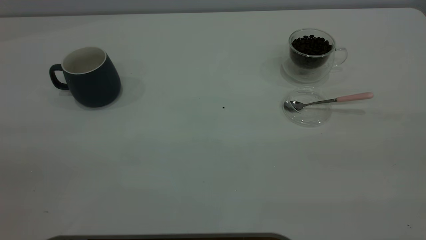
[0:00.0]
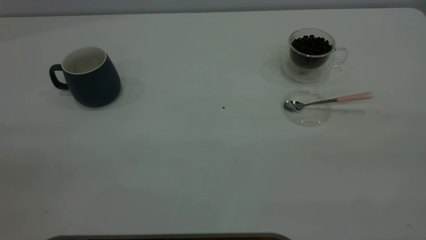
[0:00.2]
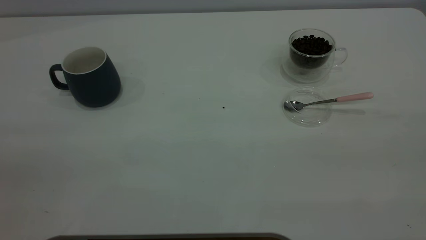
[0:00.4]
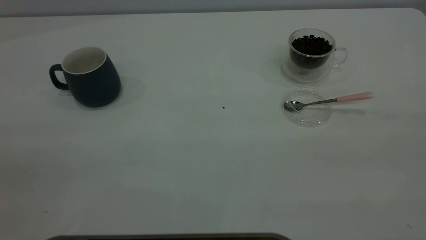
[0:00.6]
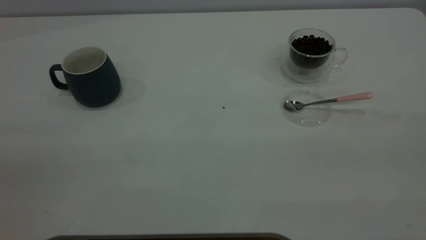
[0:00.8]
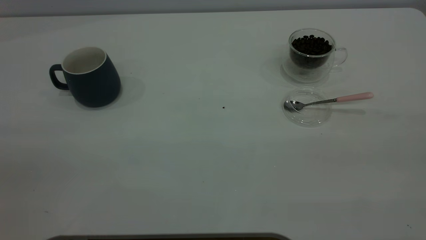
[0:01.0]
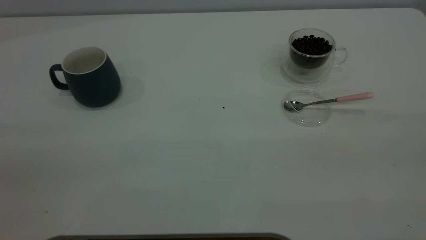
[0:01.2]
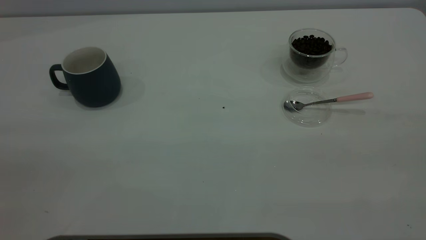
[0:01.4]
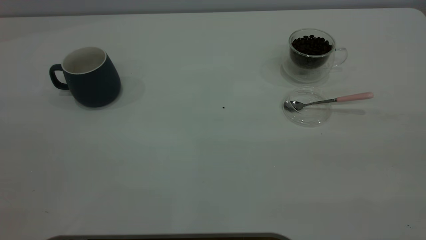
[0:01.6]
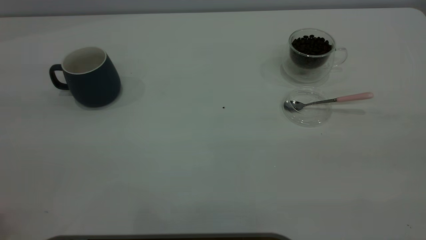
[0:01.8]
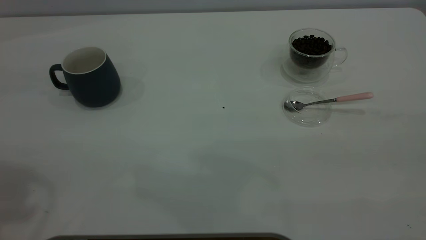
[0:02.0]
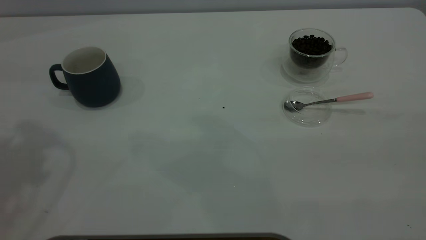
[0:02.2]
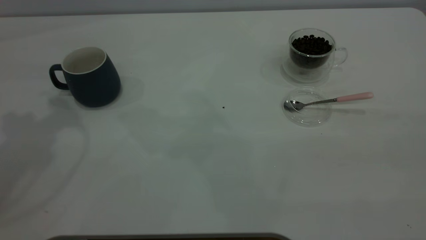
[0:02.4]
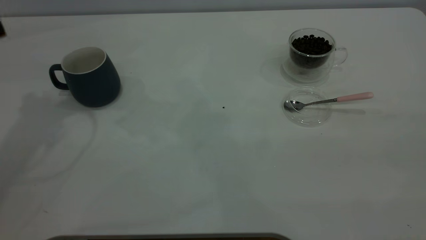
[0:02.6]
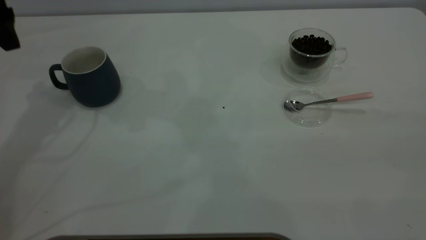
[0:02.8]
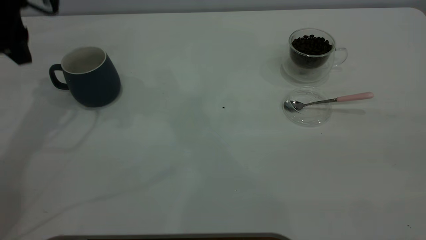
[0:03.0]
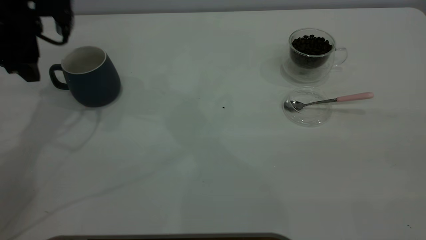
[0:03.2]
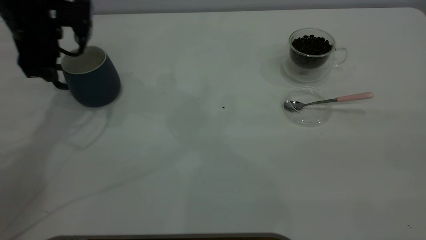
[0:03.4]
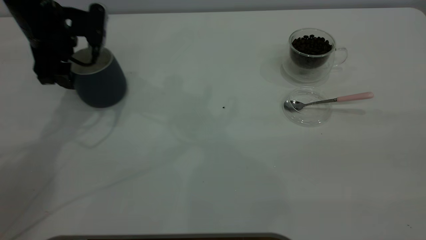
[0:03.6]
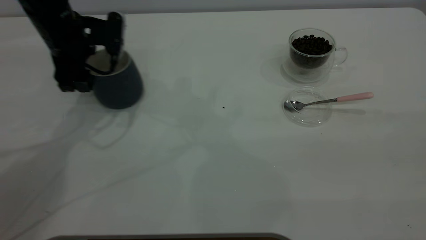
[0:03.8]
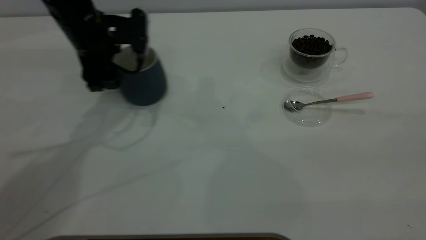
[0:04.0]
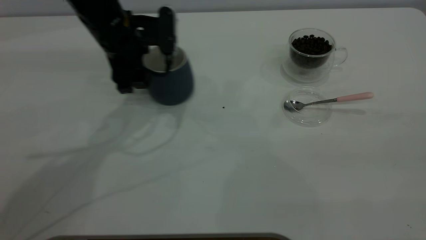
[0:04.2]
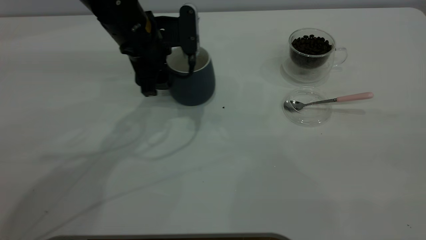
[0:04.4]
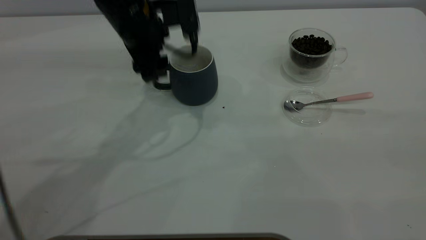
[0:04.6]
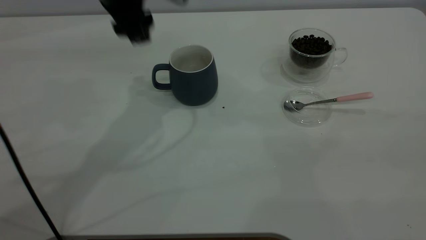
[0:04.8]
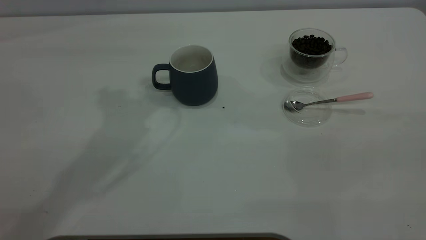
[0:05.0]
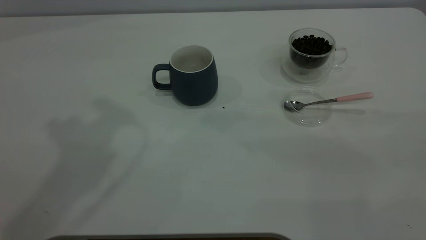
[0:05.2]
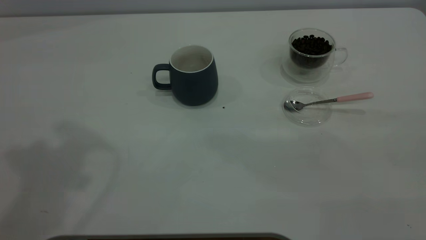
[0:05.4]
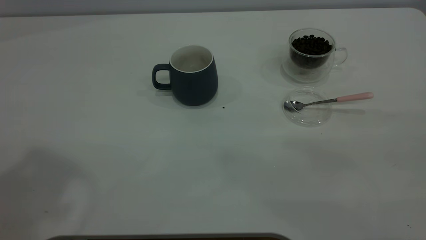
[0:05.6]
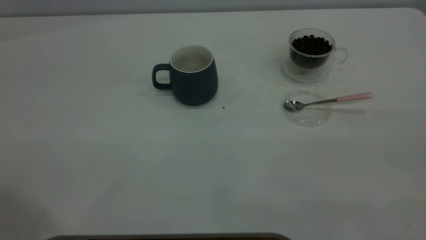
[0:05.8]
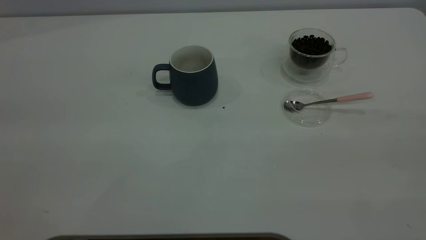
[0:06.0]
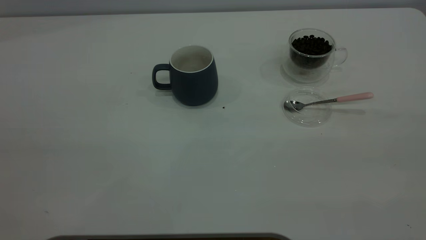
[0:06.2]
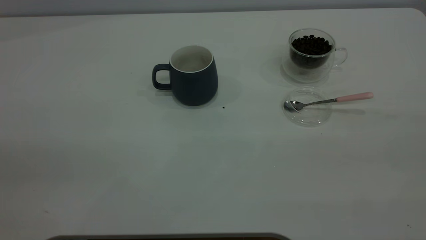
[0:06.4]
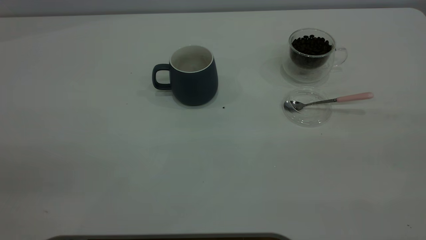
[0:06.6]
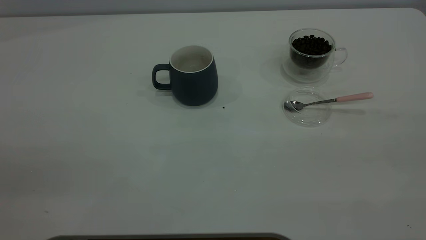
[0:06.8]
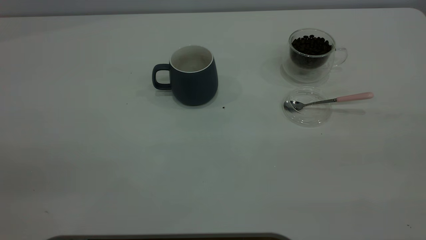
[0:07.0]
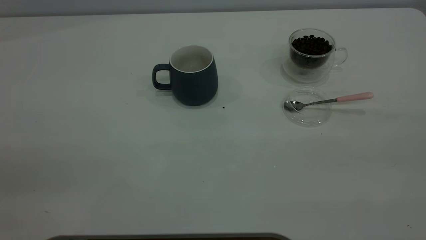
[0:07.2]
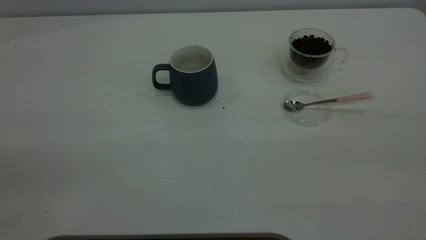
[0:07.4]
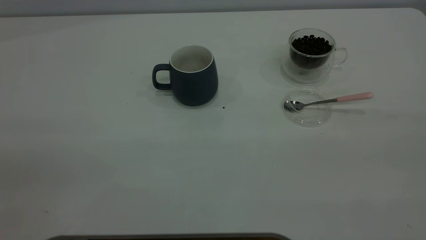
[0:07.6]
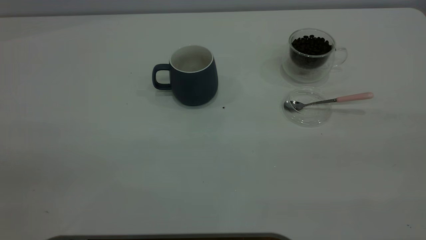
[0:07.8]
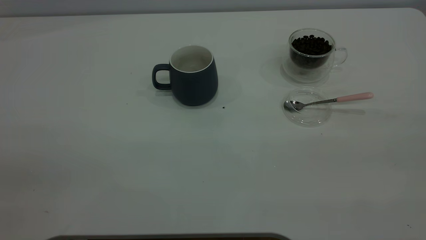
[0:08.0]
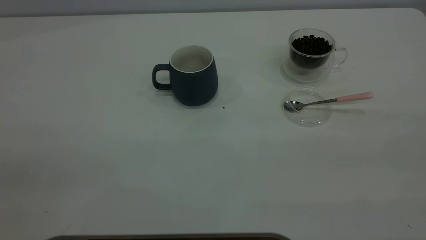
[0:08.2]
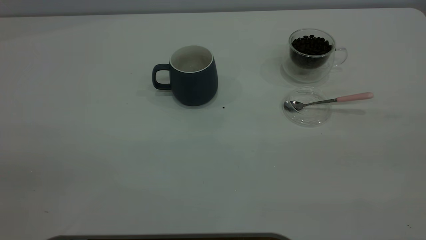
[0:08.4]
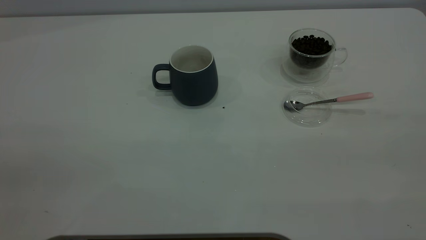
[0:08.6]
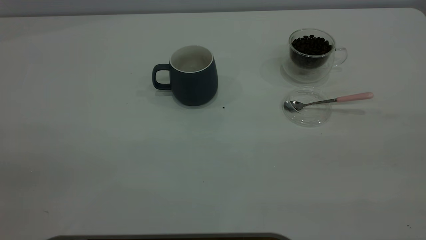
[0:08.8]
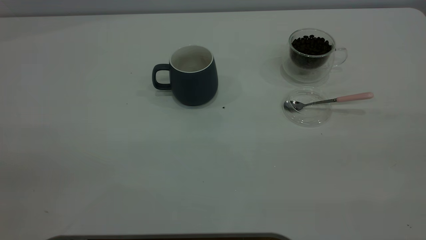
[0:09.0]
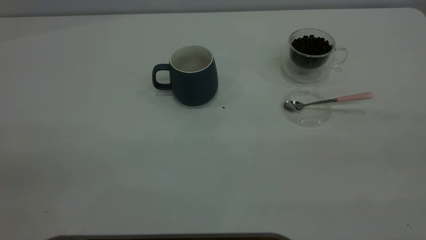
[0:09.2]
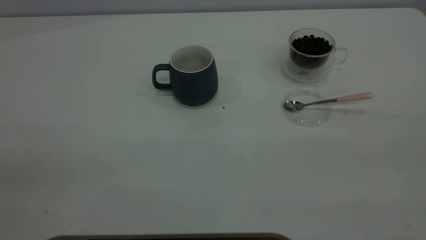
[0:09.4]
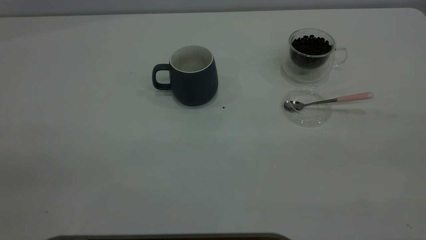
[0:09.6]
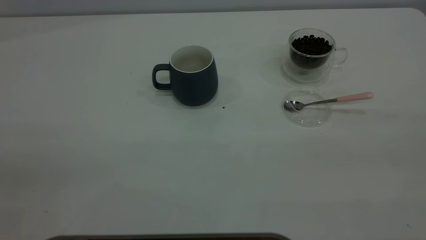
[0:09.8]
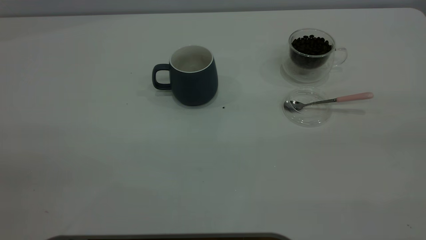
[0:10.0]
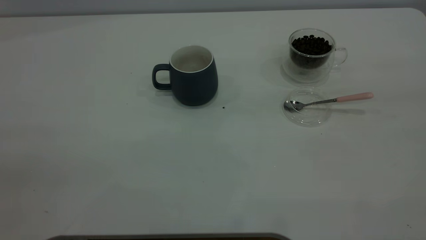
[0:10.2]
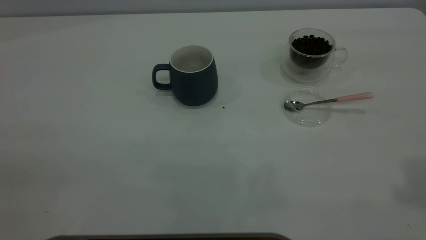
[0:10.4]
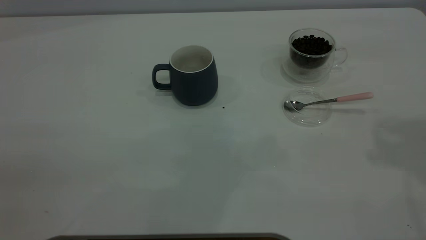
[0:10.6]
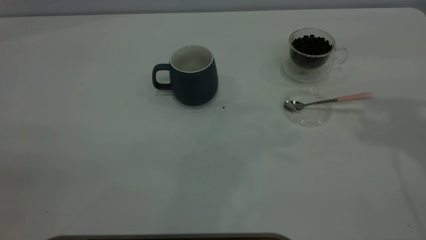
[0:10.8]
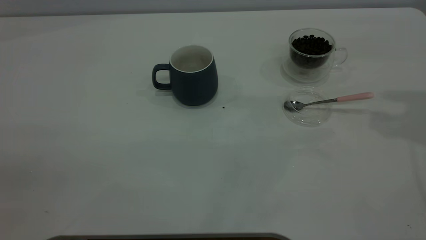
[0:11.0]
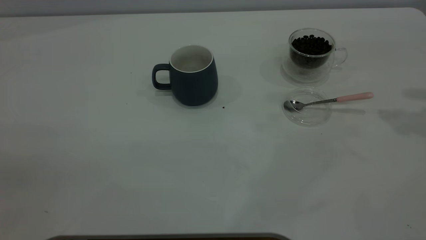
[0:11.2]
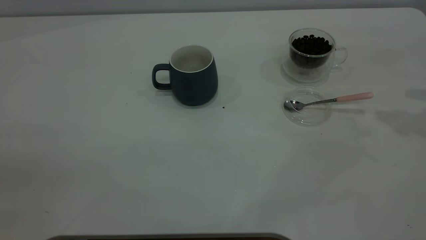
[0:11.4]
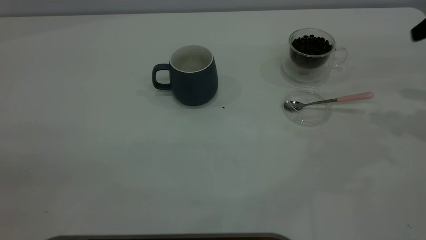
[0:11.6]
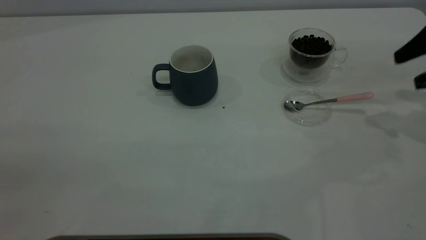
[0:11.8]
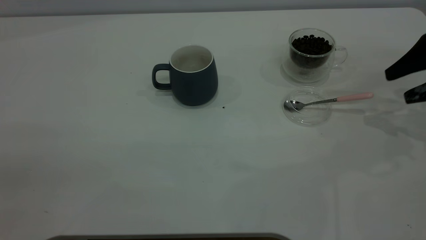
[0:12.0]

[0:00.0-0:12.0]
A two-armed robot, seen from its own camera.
Task of the whole recording: the left gripper place the grey cup in the center of the table, the right gripper take the pink spoon from the cup lid and scoop out the coffee beans from the coffee cup and put them into the grey cup, the right gripper put the spoon back into the cup lid.
Step, 0:00.0 to 0:04.6: Move the cup to the center of view.
0:01.6 to 0:03.0: The left gripper heads forward and downward, covering about 40 cm.
0:03.0 to 0:04.4: The left gripper shifts approximately 20 cm to the right.
0:04.4 to 0:06.0: The left gripper is displaced backward, upward and to the left by about 50 cm.
0:07.6 to 0:09.0: The two grippers keep their place.
0:10.4 to 0:12.0: The right gripper moves downward and forward, about 35 cm.

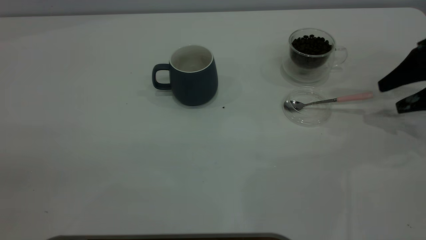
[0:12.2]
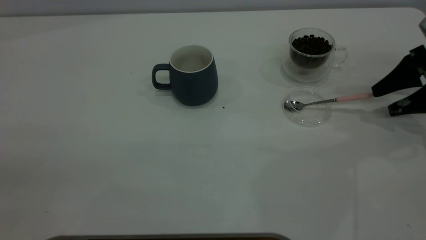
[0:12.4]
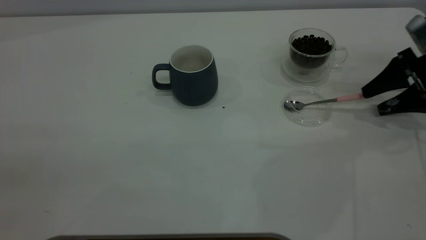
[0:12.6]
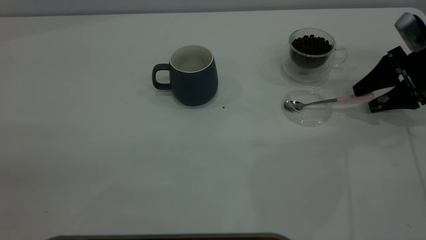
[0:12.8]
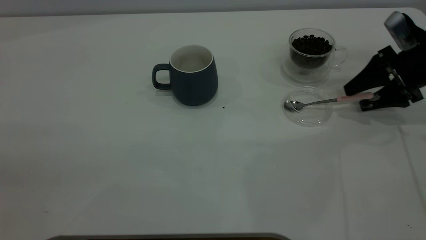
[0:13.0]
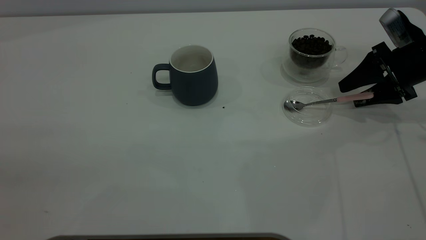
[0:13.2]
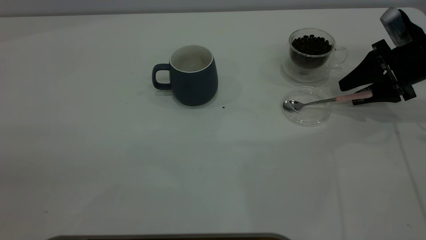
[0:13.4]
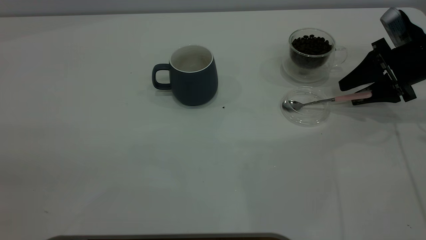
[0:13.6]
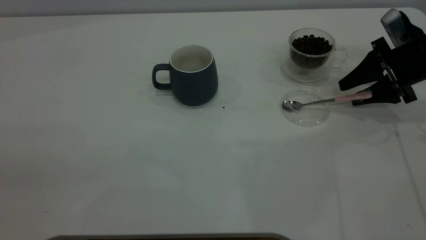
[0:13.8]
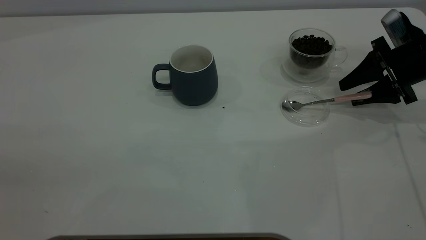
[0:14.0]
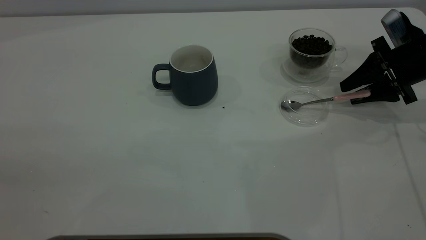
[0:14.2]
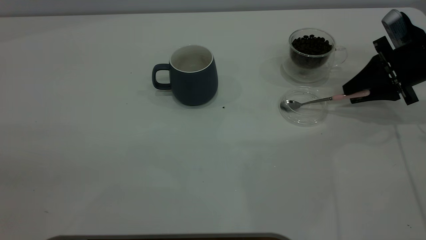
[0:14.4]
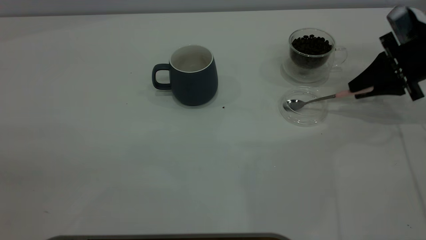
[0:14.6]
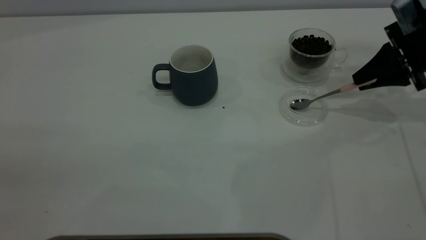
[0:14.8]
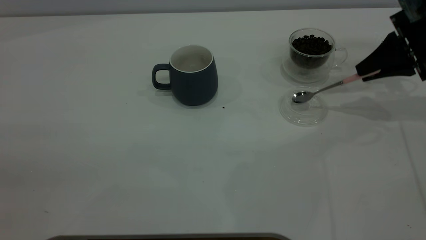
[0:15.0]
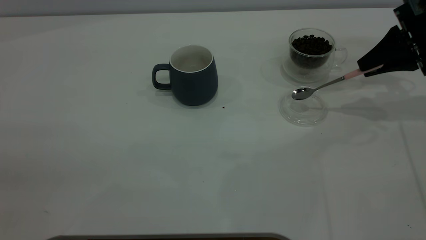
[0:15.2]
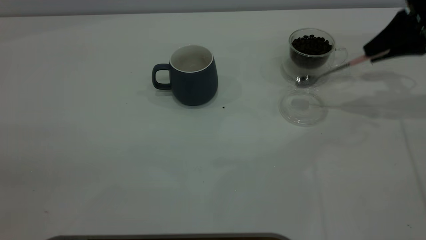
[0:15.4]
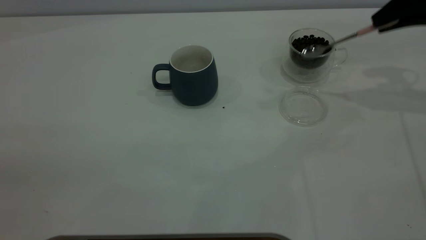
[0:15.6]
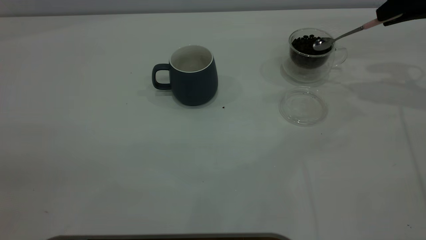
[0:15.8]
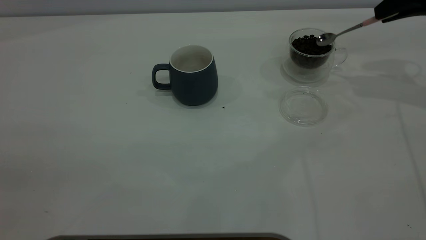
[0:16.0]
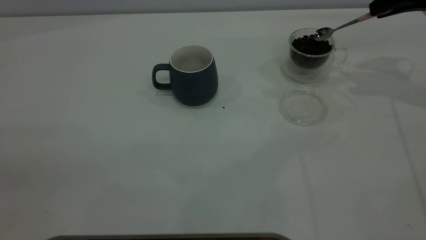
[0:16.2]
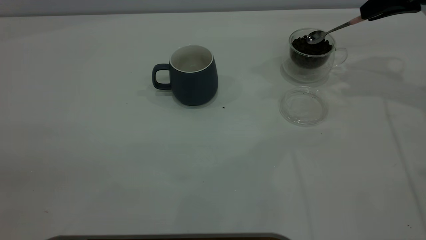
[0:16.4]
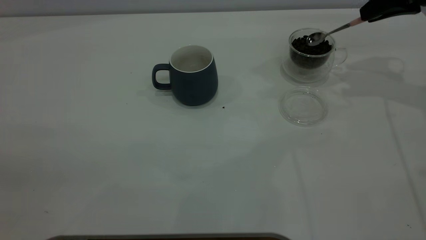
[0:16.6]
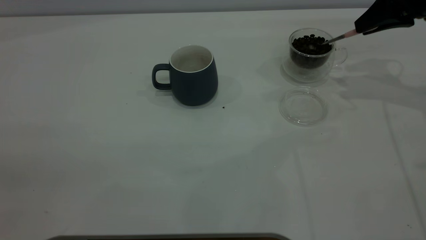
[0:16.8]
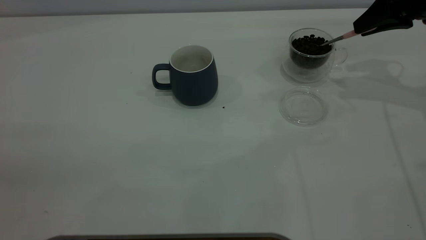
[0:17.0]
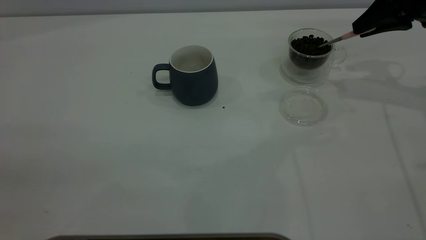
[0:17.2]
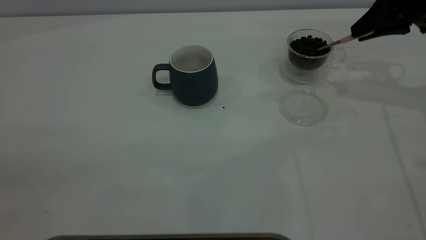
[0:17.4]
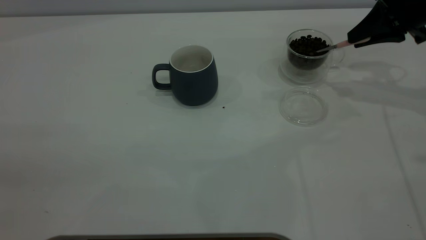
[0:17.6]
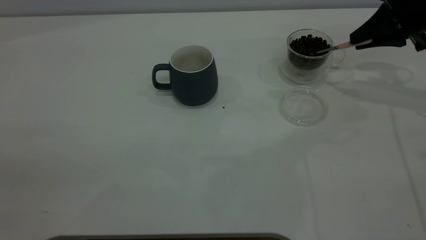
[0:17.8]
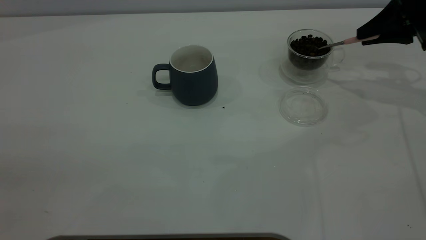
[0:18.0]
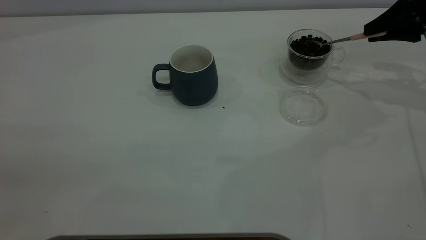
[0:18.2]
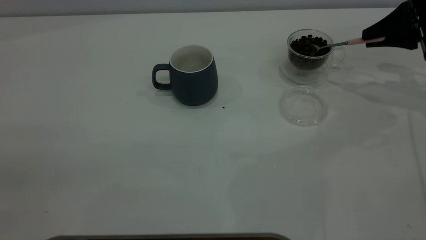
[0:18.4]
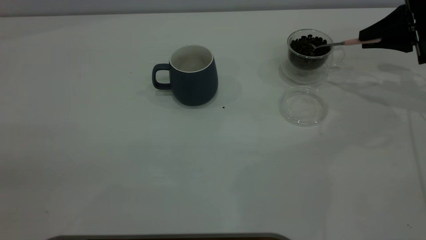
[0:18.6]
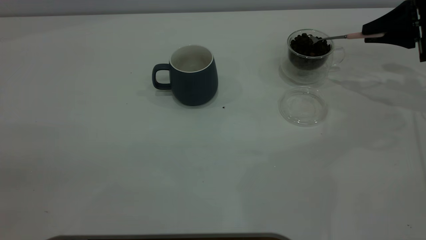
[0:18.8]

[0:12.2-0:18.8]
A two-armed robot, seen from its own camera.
Task of the whole recording: the left gripper place the grey cup in the center of the table, the right gripper take the pink spoon from the cup lid and scoop out the coffee beans from the coffee cup and put them into the grey cup, the right gripper put the spoon back into the cup lid.
Step, 0:12.2 to 0:15.4: Pick up the spoon.
0:12.2 to 0:13.8: The right gripper changes place by some 5 cm.
0:13.8 to 0:15.4: The right gripper heads upward, covering approximately 10 cm, and closes its fingers.
0:17.2 to 0:18.8: The right gripper moves approximately 5 cm.
